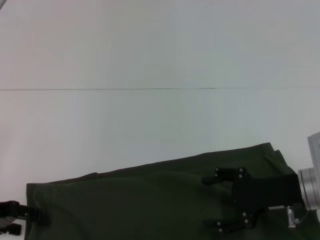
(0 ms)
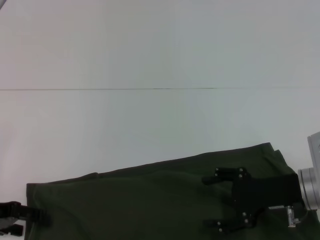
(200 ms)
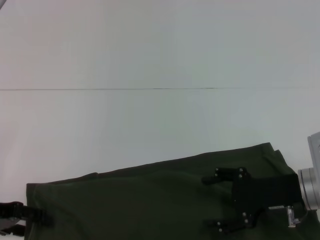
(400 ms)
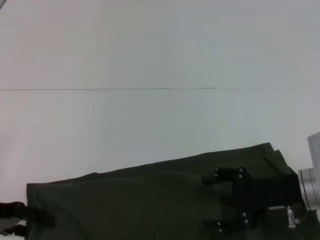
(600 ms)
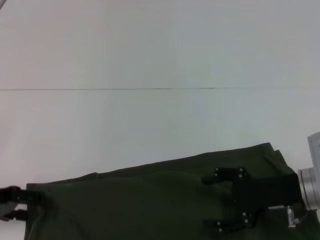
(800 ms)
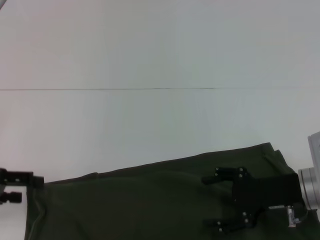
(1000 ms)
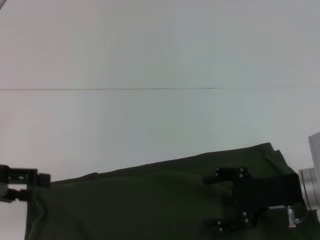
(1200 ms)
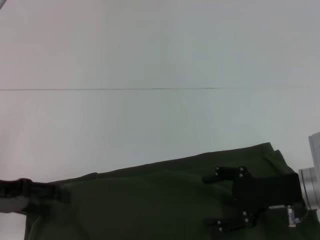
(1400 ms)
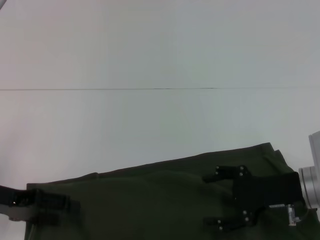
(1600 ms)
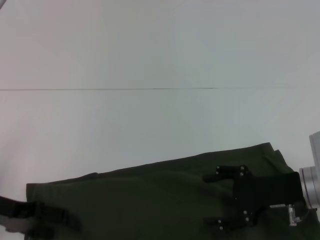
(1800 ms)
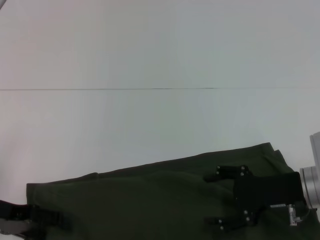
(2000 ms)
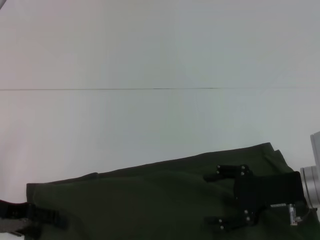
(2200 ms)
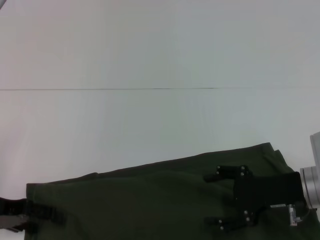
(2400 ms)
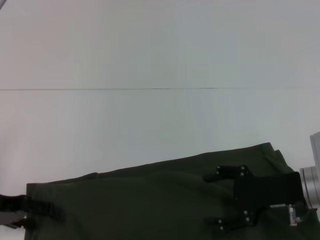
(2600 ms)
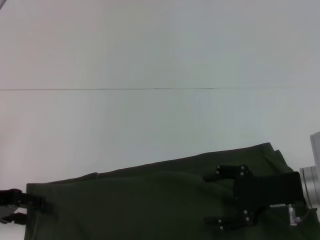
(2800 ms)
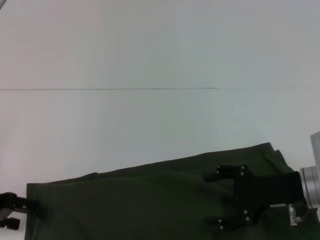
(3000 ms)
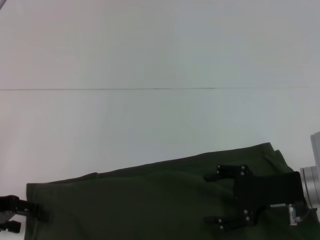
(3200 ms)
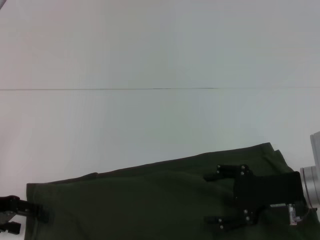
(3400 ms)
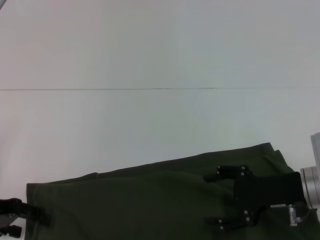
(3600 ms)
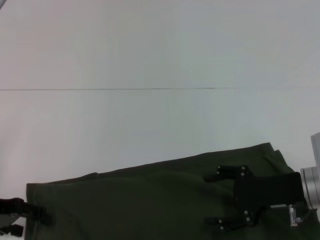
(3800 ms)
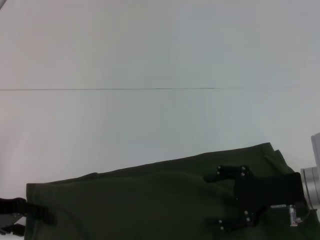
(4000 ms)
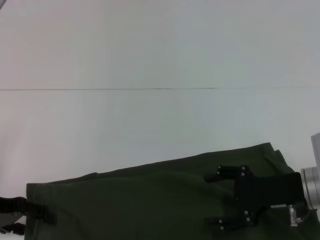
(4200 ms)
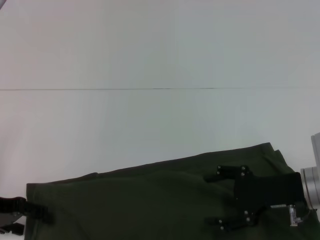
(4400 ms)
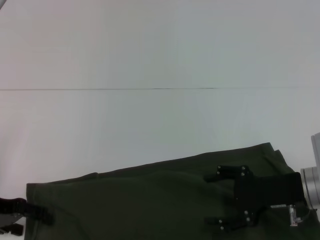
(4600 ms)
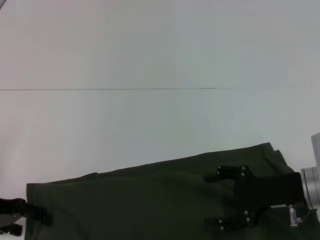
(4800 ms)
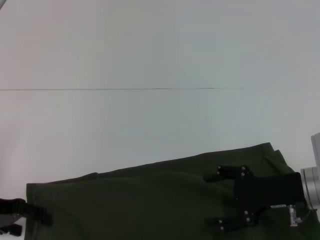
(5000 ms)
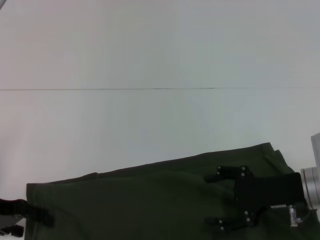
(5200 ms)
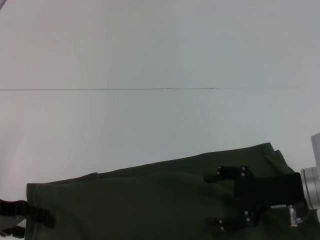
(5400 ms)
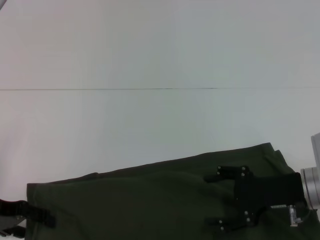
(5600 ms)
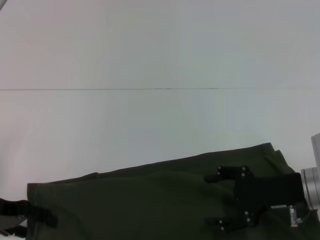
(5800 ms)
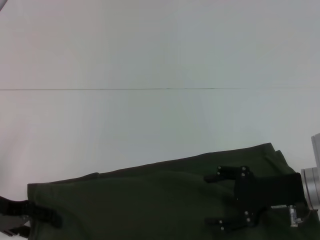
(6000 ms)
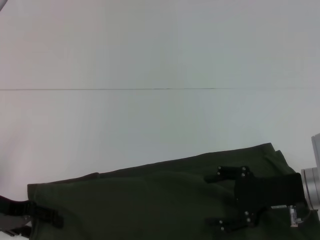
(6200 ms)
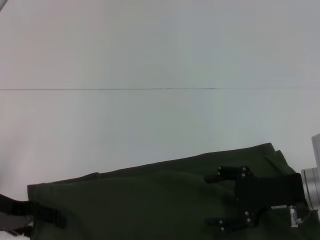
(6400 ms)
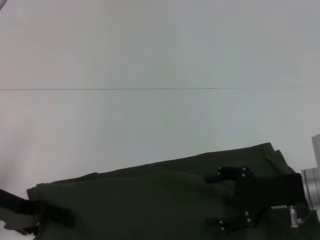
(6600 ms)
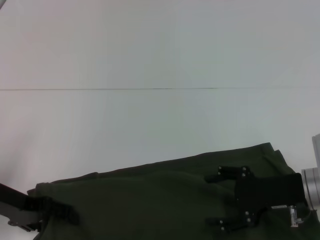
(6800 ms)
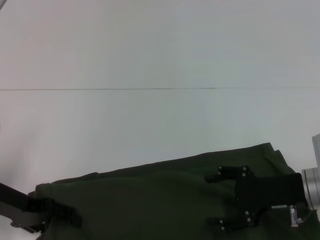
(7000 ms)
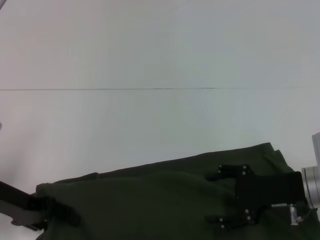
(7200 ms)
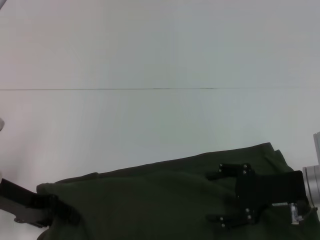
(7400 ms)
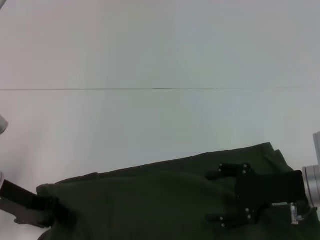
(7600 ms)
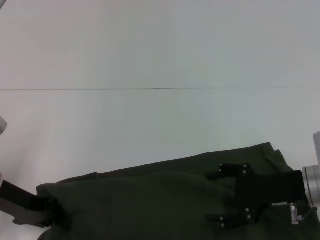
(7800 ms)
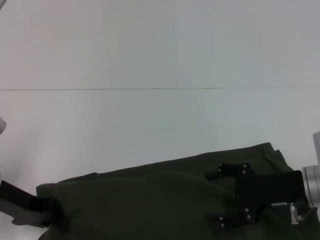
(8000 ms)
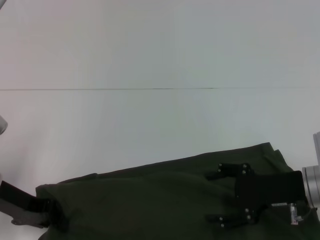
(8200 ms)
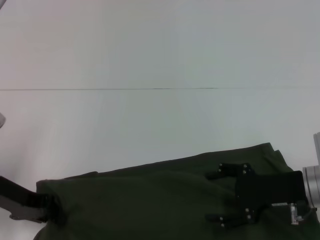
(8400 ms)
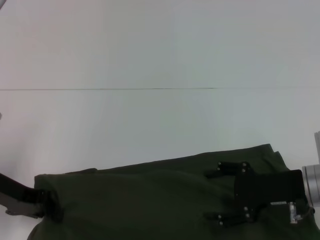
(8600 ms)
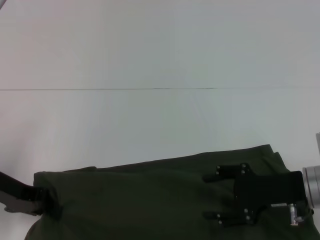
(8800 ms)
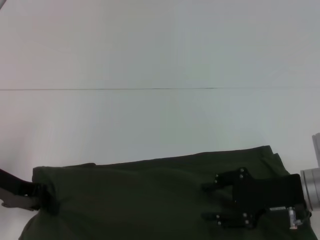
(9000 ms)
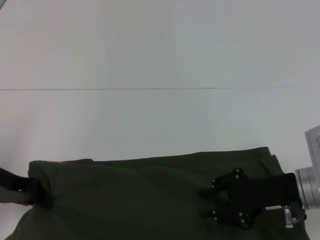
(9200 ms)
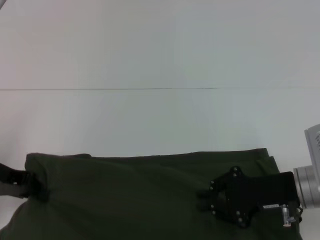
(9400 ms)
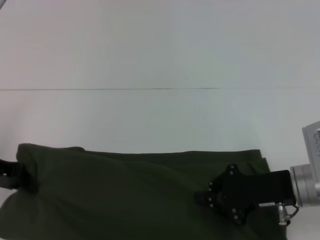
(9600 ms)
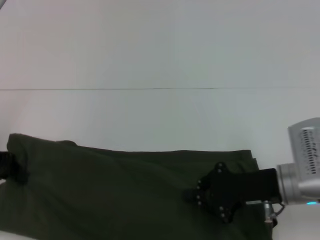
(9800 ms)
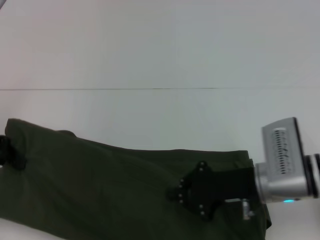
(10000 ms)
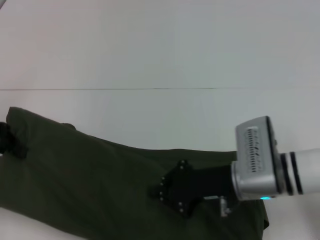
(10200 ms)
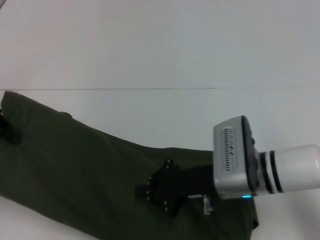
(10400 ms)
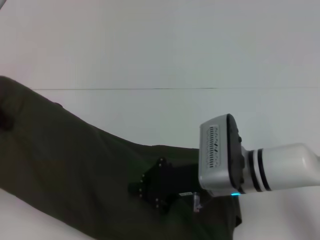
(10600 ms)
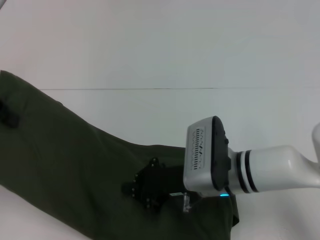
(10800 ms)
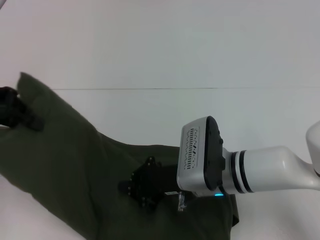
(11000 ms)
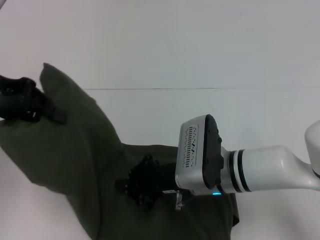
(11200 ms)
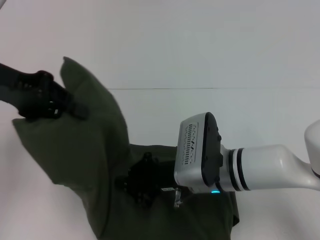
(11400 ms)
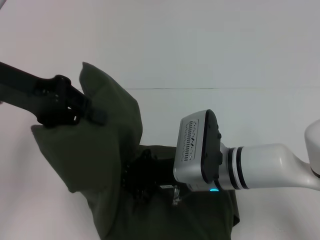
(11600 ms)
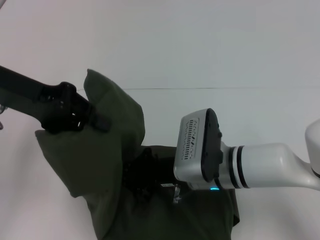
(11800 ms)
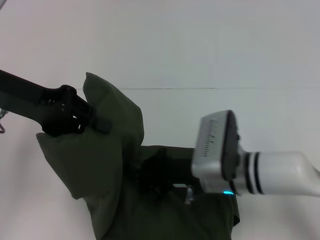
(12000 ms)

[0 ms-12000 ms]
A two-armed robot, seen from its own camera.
0 ms to 3000 ms: There are only small adjustments of the grippers.
6000 ms to 7600 ms: The left gripper closes its fingers.
7600 ms to 9000 ms: The left gripper closes.
9000 ms to 10400 ms: The left gripper goes about 10 cm upward. Meanwhile the right gripper goes about 10 cm to the left, and closes up.
10400 ms to 12000 ms: The left gripper is displaced to the right by about 10 cm.

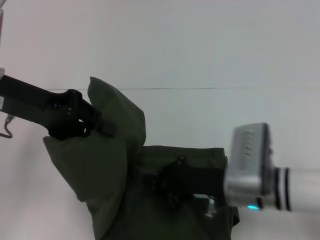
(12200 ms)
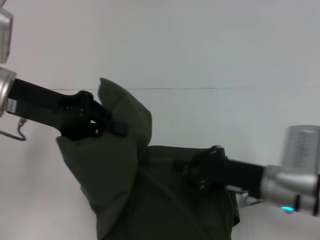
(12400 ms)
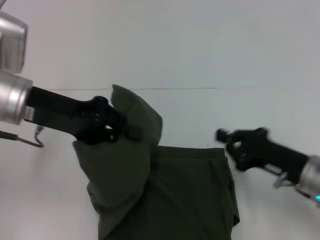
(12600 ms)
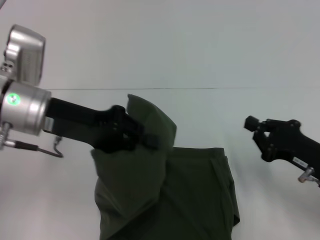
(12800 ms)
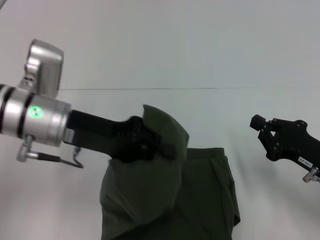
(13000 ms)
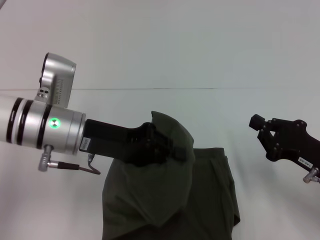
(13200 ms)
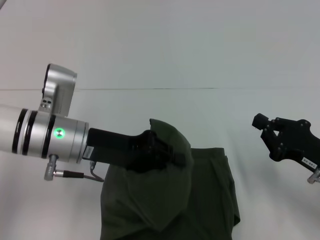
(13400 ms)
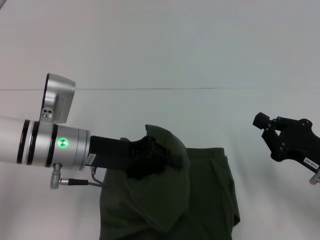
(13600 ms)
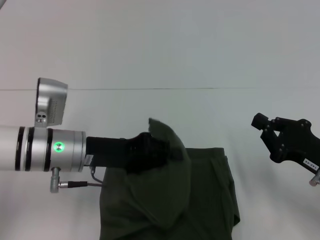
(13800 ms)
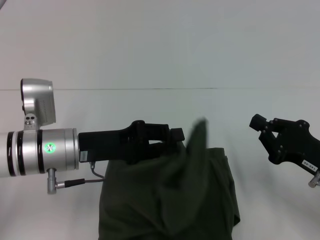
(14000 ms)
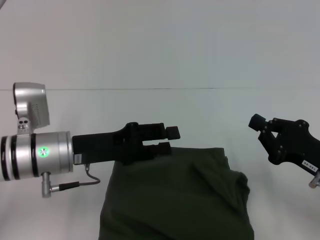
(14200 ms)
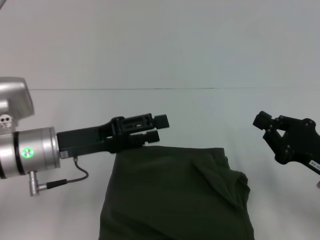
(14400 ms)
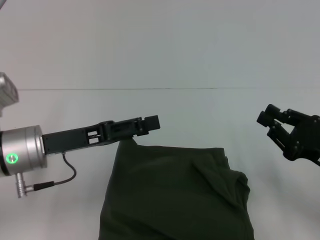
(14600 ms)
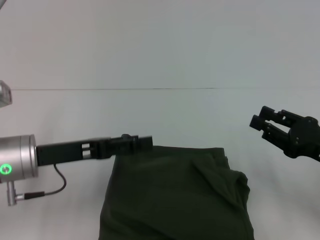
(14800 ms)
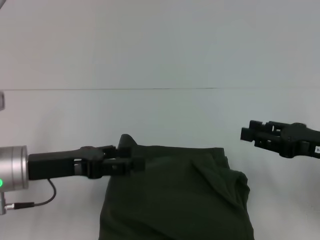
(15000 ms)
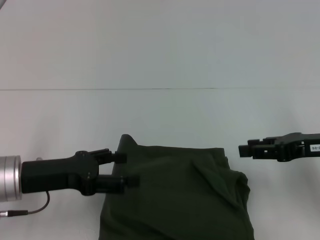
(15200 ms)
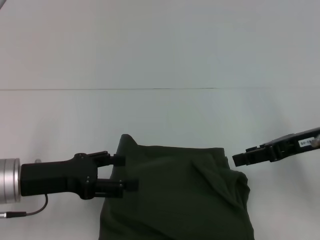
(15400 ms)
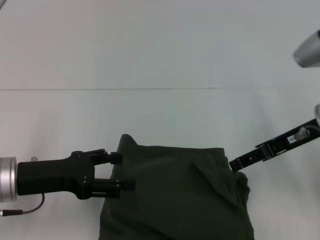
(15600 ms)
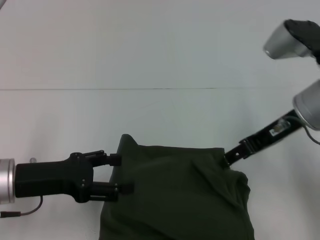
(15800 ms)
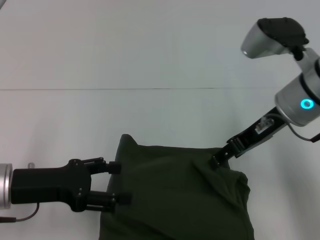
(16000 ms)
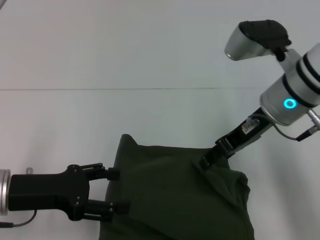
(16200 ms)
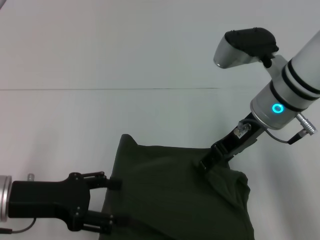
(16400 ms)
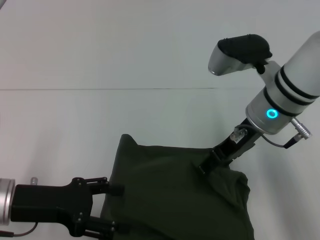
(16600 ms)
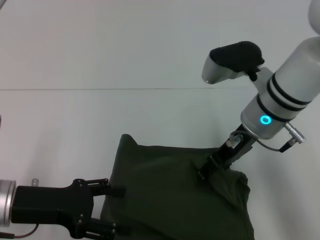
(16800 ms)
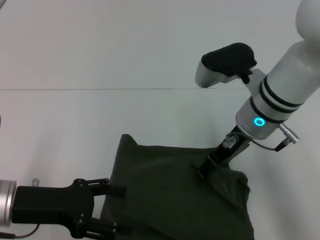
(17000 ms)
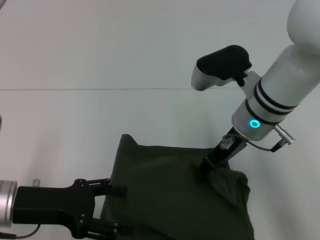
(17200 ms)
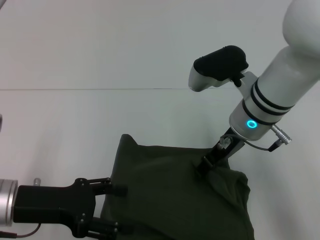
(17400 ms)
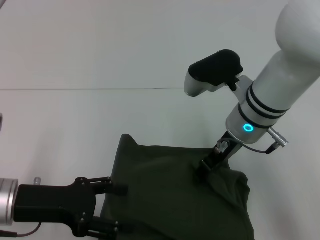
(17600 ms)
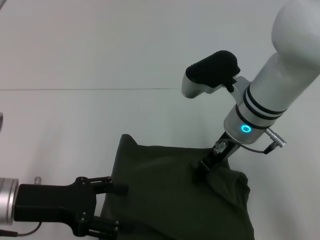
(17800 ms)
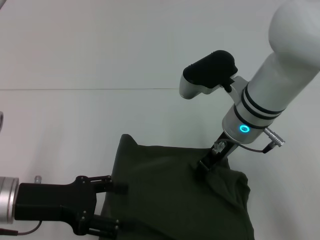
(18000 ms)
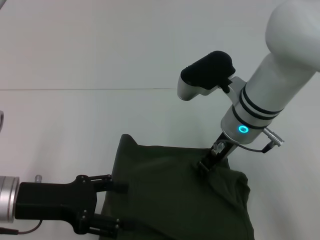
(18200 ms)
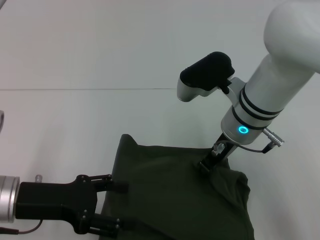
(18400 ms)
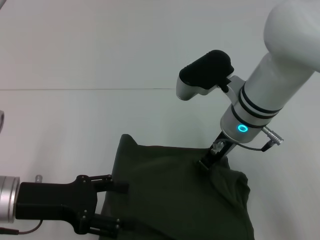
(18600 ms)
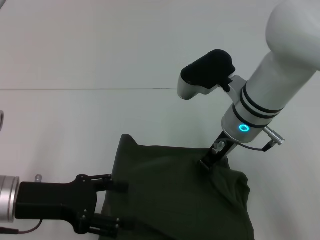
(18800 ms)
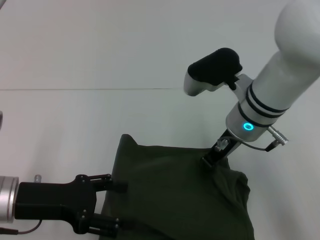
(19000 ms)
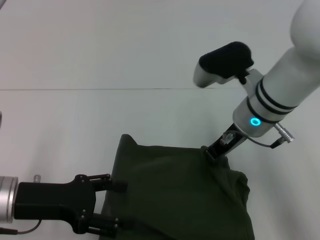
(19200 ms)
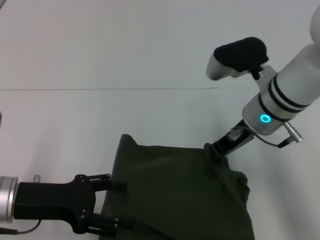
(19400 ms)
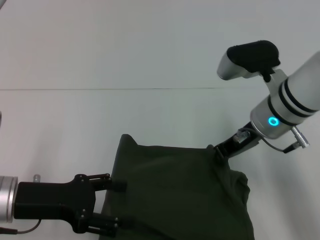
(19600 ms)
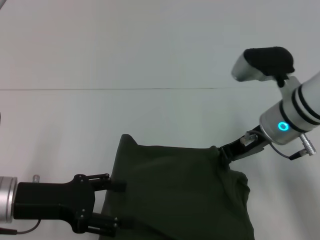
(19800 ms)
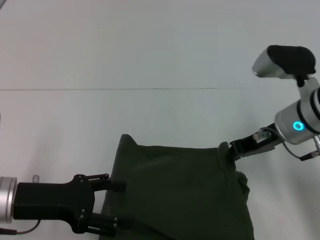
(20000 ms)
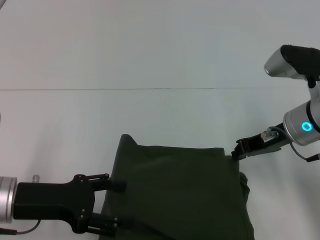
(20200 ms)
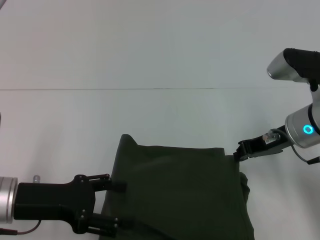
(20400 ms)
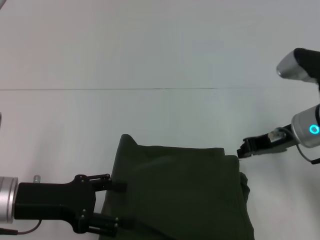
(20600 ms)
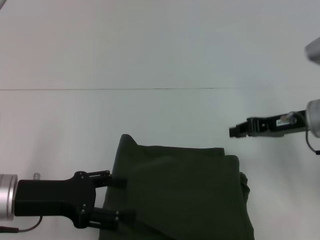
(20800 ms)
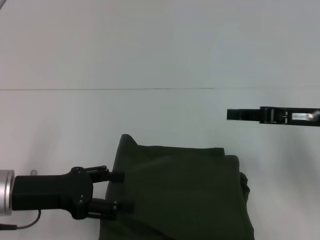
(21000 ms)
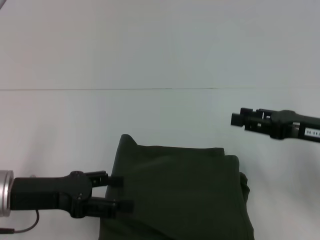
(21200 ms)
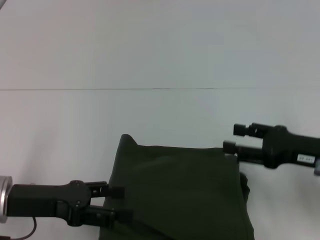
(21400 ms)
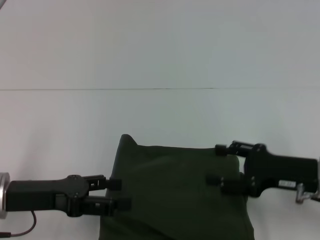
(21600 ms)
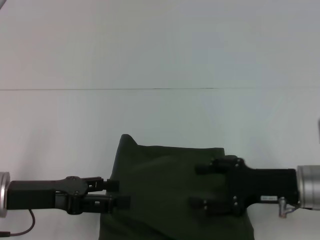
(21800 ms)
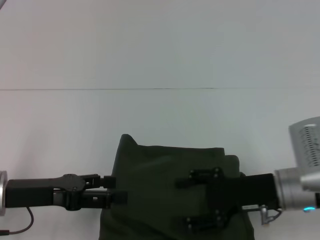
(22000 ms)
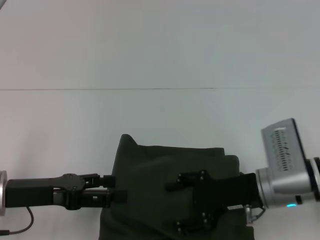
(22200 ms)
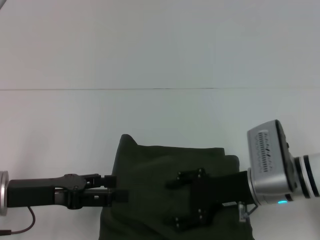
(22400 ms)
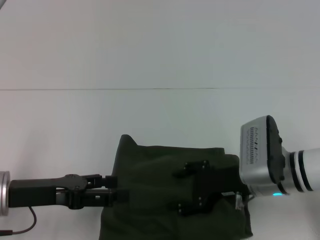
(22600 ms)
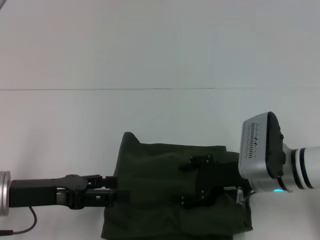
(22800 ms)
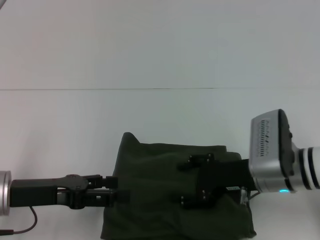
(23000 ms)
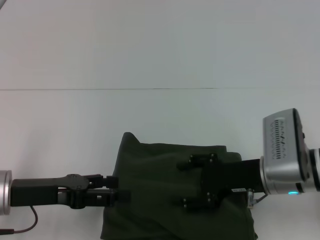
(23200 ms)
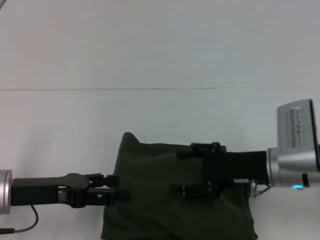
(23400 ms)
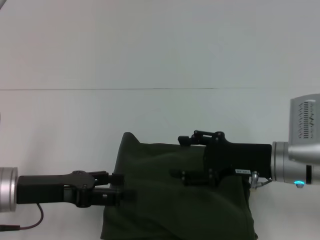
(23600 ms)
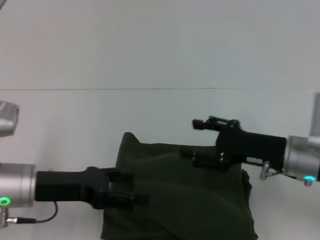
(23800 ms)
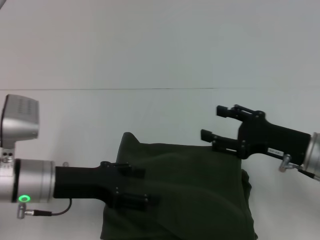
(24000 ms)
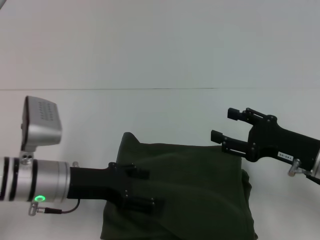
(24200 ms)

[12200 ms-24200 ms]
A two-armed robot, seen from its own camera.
Step, 12200 ms to 14200 ms: Fold the clothes with your left hand.
12200 ms to 13800 ms: The right gripper goes approximately 15 cm to the right; the left gripper travels downward and to the right by approximately 15 cm.
13800 ms to 15200 ms: The right gripper moves upward, some 10 cm, and opens; the left gripper moves to the left, about 5 cm, and opens its fingers.
15200 ms to 16600 ms: The right gripper travels to the left and forward by some 15 cm, and opens up.
16600 ms to 18200 ms: There are only small adjustments of the grippers.
18200 ms to 19800 ms: The right gripper travels to the right by roughly 5 cm, and closes its fingers.
19800 ms to 21200 ms: The right gripper moves to the right and backward, roughly 15 cm, and opens.
21200 ms to 22600 ms: The right gripper goes about 15 cm to the left and downward, and opens up.
22600 ms to 24200 ms: The two grippers go approximately 5 cm to the right.
